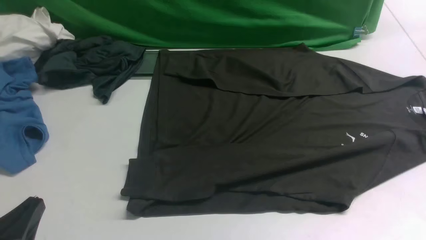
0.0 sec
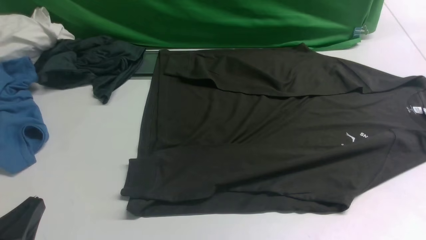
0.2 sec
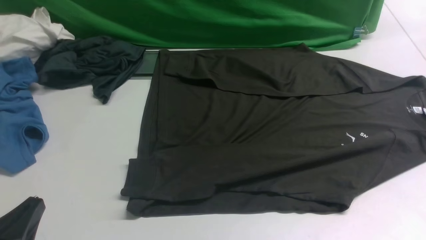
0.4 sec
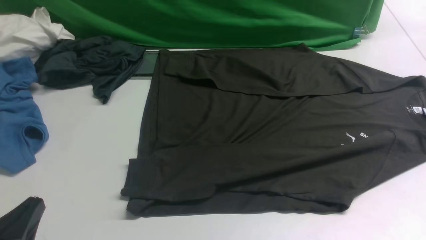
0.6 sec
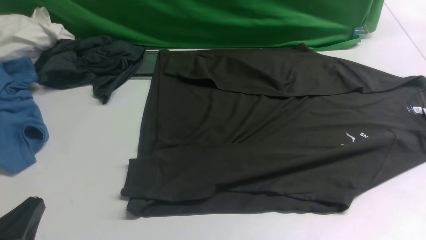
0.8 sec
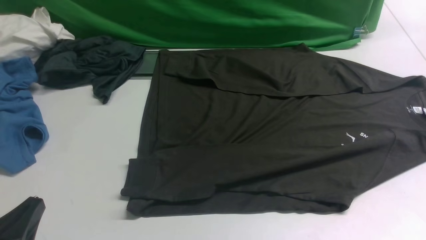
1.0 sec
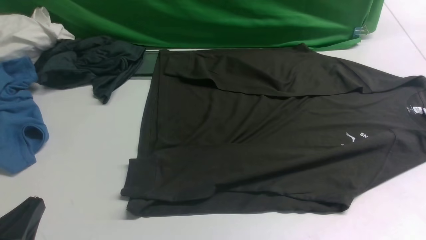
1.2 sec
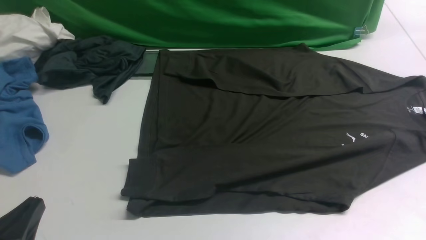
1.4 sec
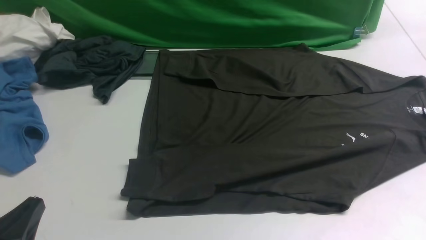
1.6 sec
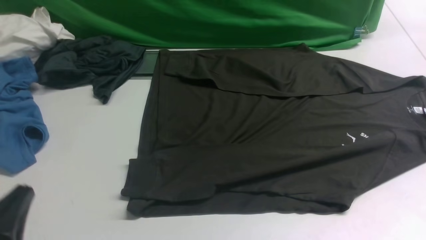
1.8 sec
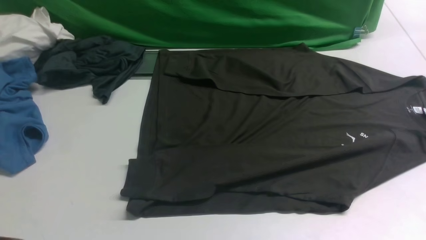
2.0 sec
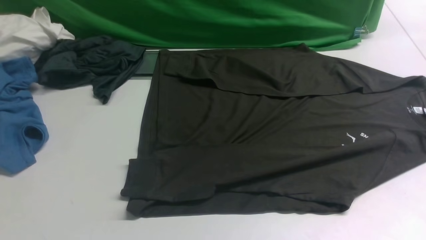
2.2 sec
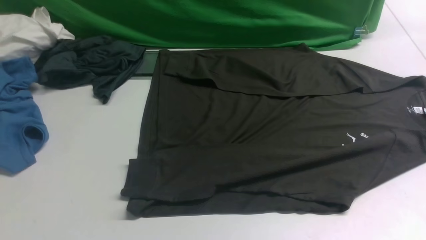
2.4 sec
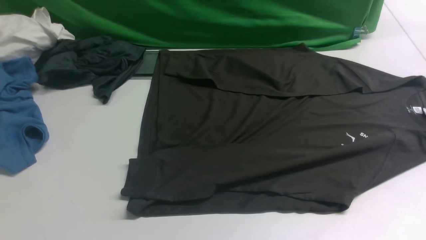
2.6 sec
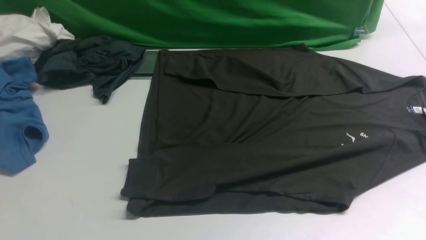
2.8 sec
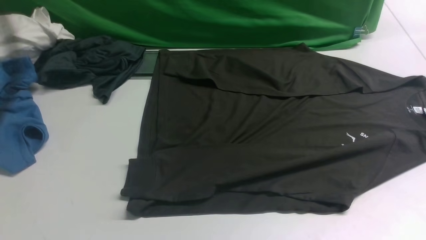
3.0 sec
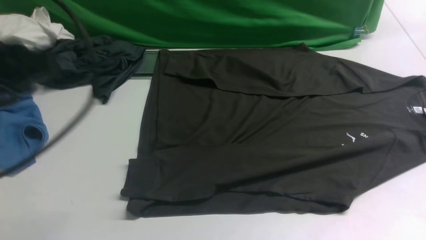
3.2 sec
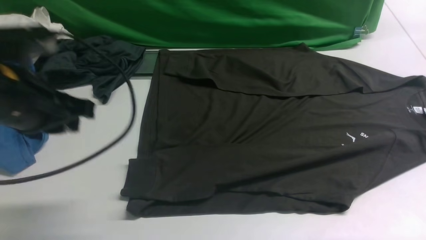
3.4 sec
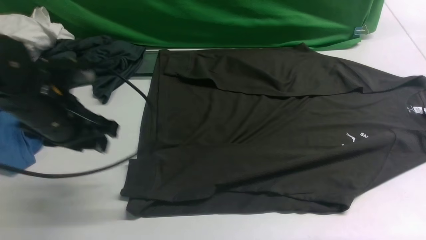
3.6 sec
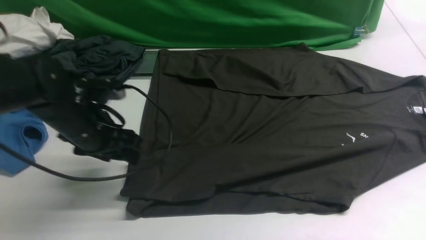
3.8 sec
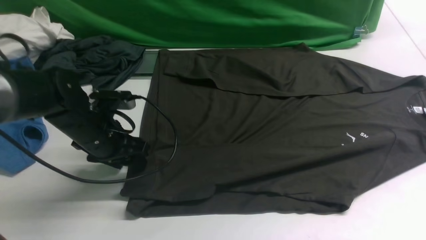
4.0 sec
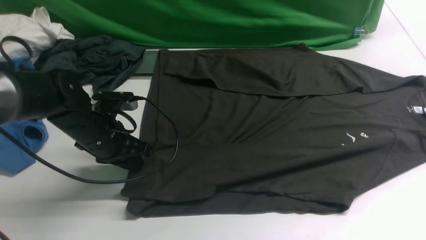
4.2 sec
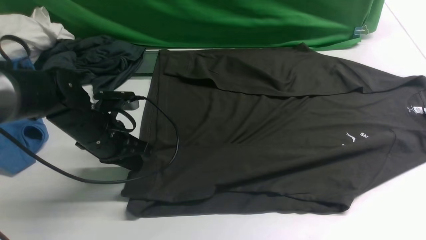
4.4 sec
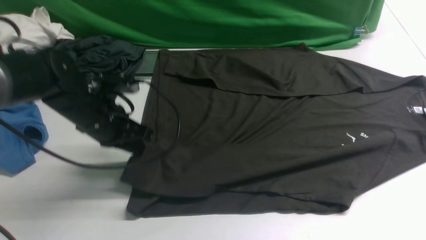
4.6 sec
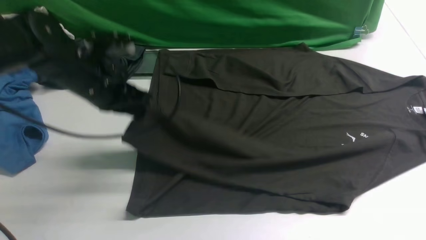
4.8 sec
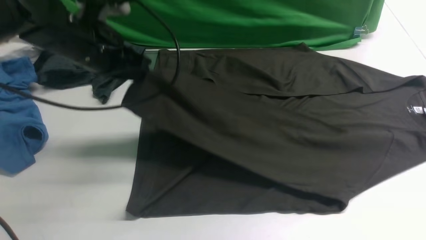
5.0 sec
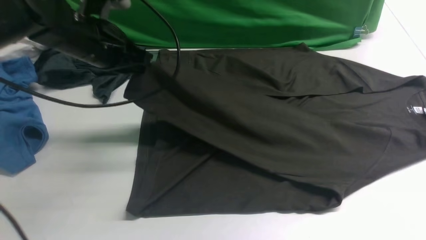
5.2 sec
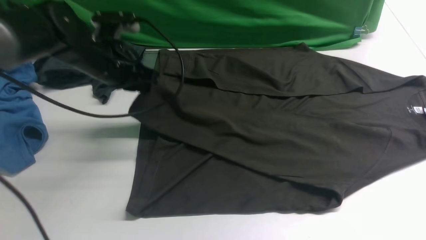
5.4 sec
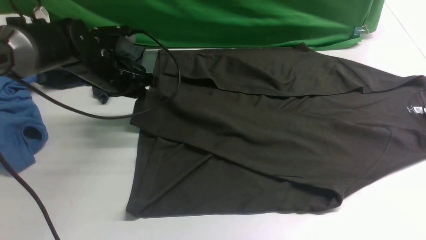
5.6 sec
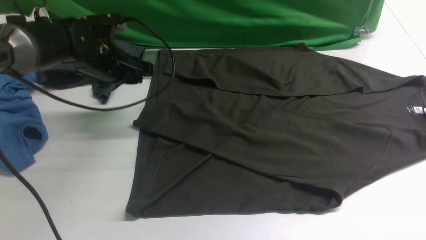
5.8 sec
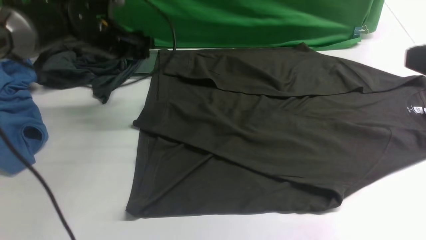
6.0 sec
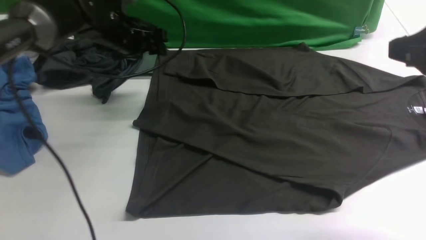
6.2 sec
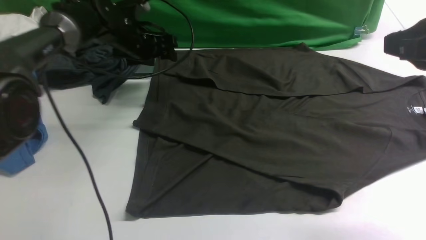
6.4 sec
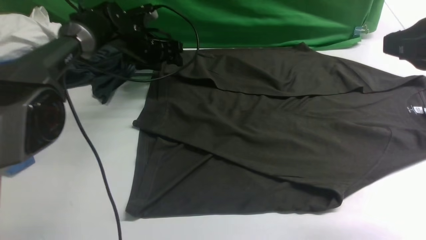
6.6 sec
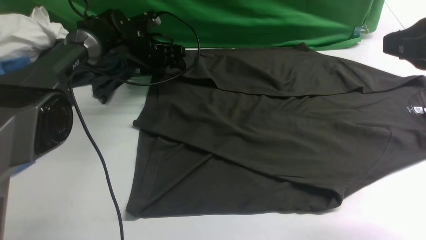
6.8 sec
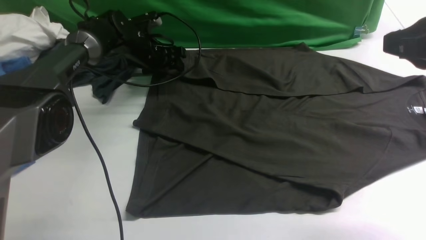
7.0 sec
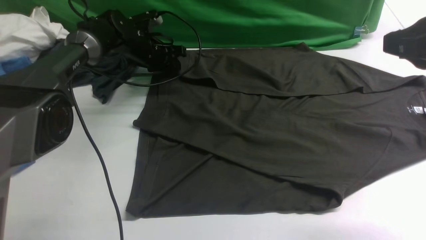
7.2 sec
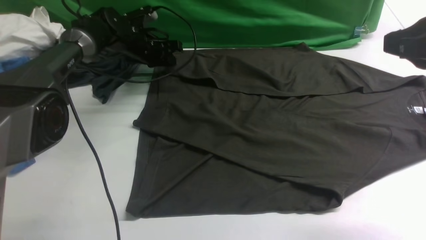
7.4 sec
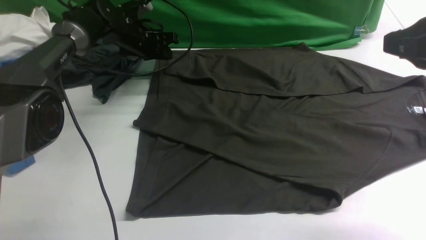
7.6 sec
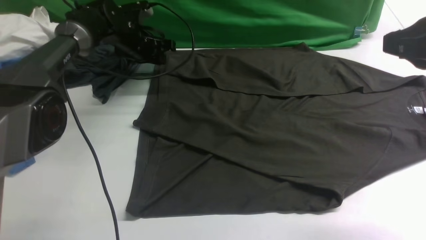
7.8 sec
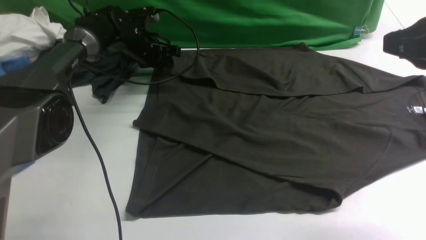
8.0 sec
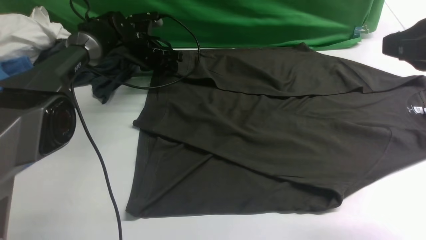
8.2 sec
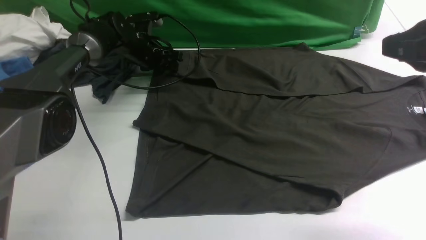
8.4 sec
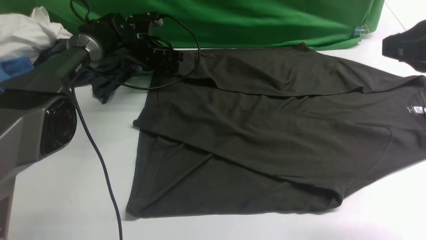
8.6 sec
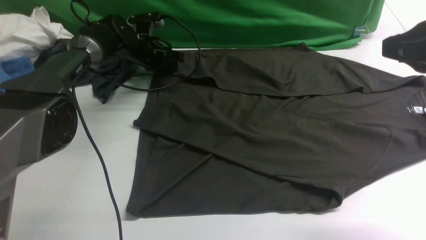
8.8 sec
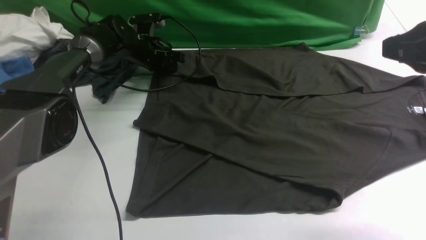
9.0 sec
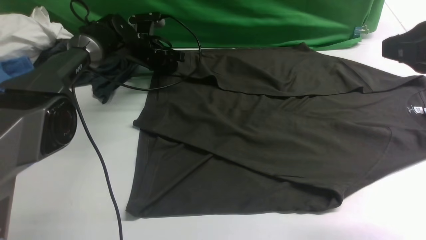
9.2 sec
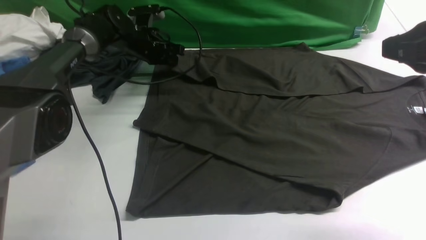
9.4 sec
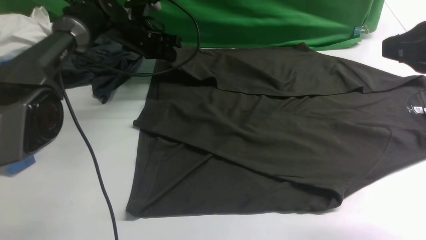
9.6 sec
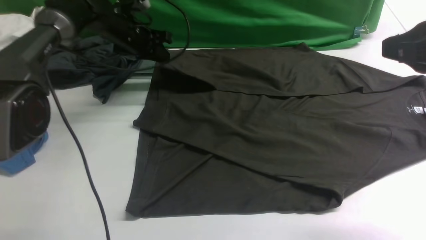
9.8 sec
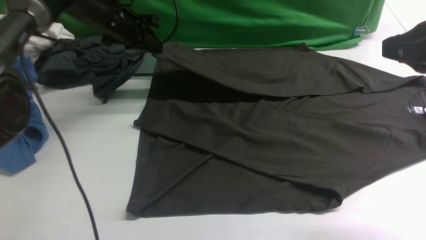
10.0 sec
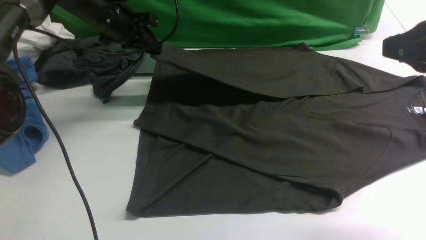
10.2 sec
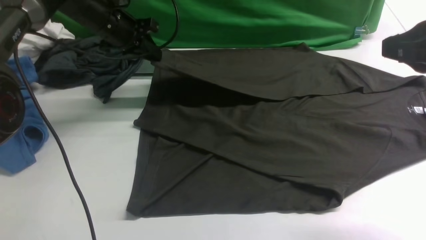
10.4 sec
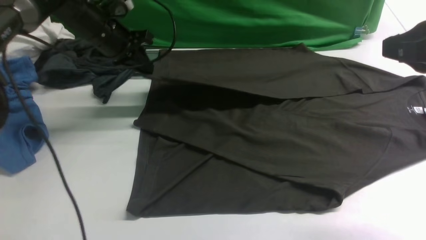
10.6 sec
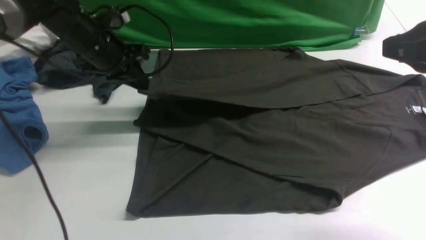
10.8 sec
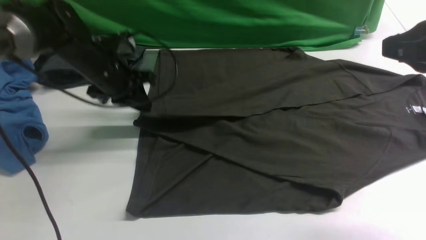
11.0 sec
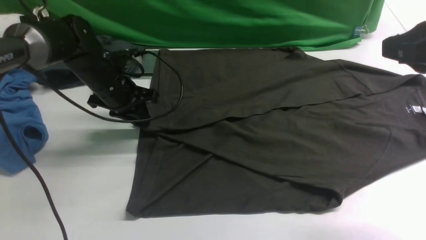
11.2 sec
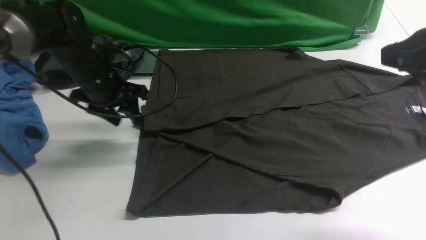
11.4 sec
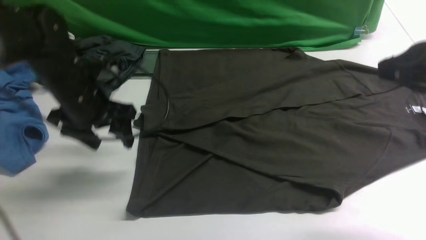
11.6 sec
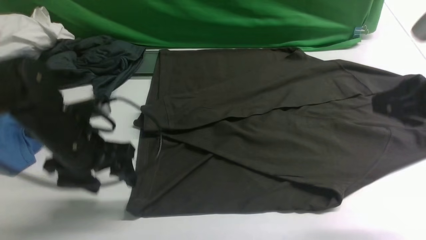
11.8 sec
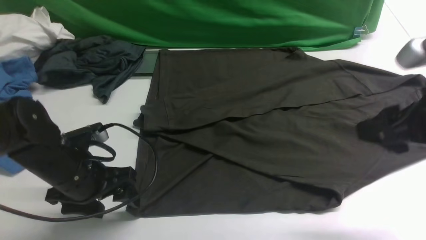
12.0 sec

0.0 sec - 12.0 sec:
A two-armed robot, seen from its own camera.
Step, 0.0 sec - 4.6 sec: use the left arm to clamp the cuff closest to it.
Step, 4.8 sec - 5.6 sec: use the left arm to drag and place the cuff at the centered position on the left edge of the fabric.
Step, 5.8 sec - 9.6 sec: use the left arm to clamp the cuff farthest from it.
Step, 9.8 sec - 11.4 sec: use the left arm to drag and drop the cuff onto the cuff closest to the left arm.
1.6 sec - 3.0 sec: The left gripper goes some 25 cm upward and forward.
3.0 sec - 4.4 sec: The left gripper moves downward and forward, about 30 cm, and opens and closes again.
4.4 sec - 6.0 sec: The left gripper is displaced forward and upward by approximately 15 cm, and opens.
6.0 sec - 7.6 sec: The left gripper shifts roughly 10 cm forward and downward, and closes up.
7.6 sec - 9.0 sec: The left gripper opens and closes again.
9.0 sec - 10.4 sec: The left gripper moves upward and backward, roughly 10 cm.
10.4 sec - 12.0 sec: The right gripper heads downward, covering about 5 cm, and opens, while the left gripper travels backward by roughly 25 cm, and opens.

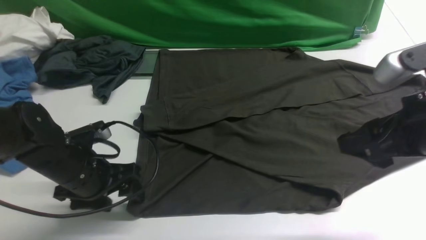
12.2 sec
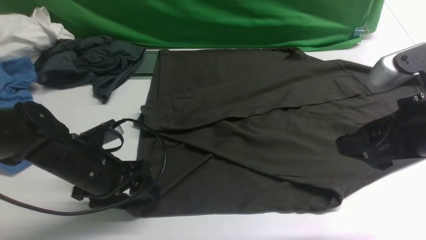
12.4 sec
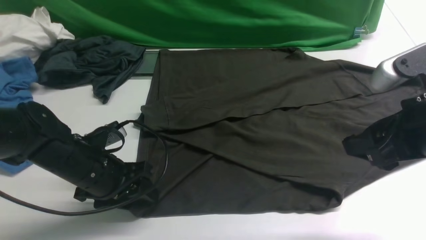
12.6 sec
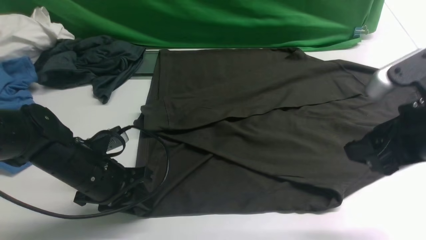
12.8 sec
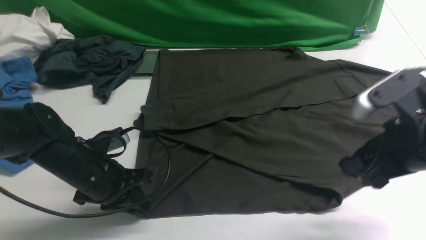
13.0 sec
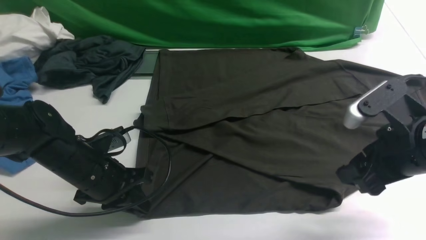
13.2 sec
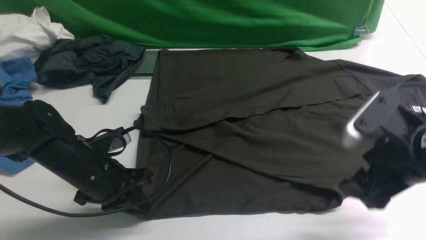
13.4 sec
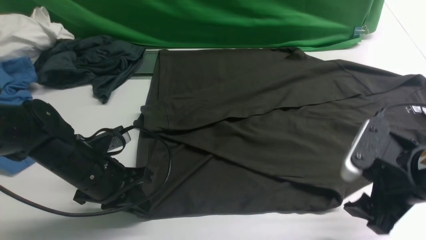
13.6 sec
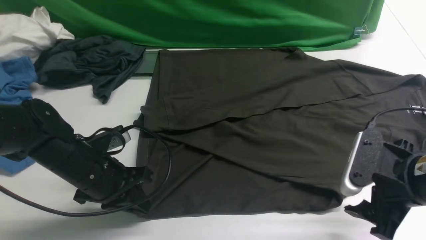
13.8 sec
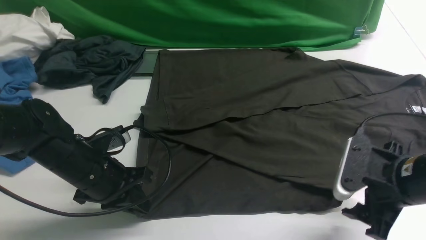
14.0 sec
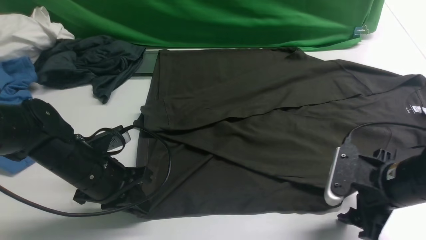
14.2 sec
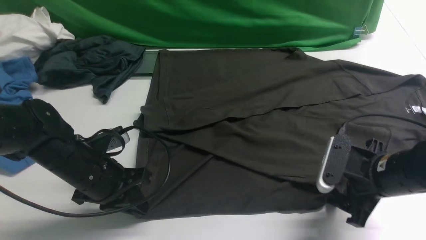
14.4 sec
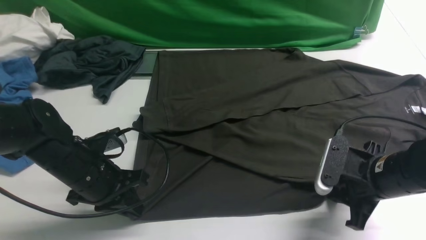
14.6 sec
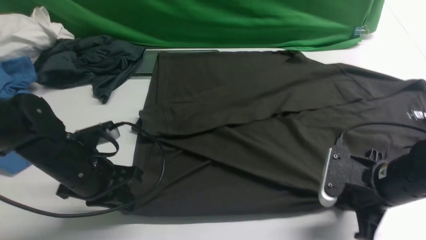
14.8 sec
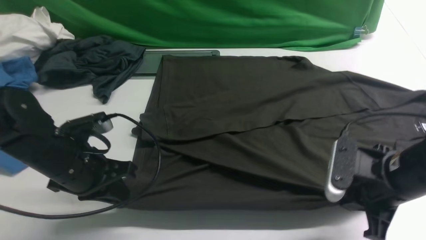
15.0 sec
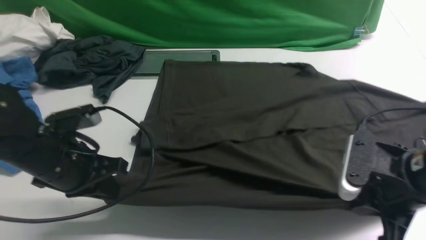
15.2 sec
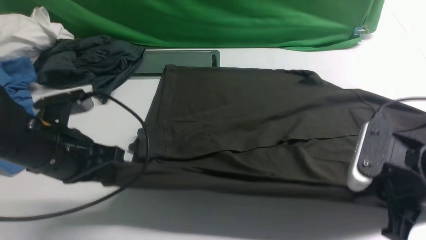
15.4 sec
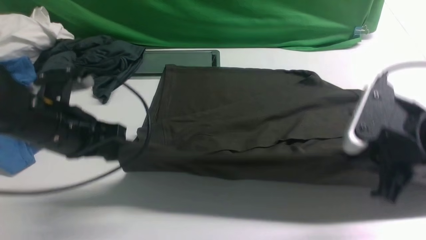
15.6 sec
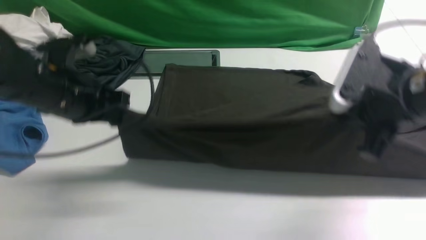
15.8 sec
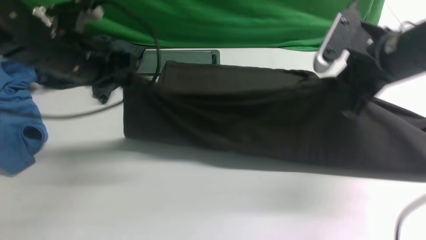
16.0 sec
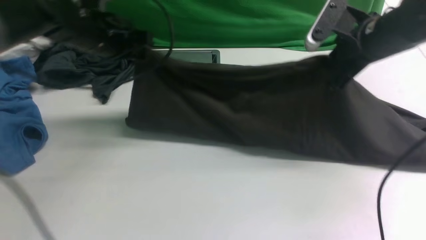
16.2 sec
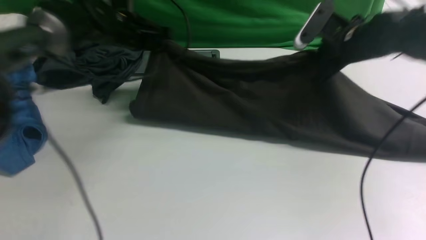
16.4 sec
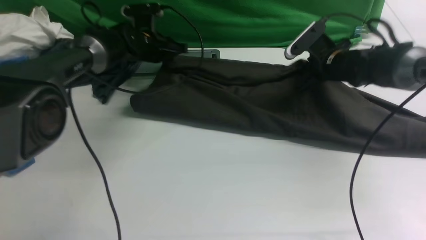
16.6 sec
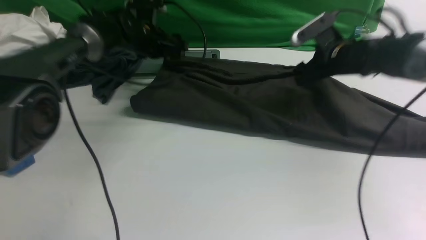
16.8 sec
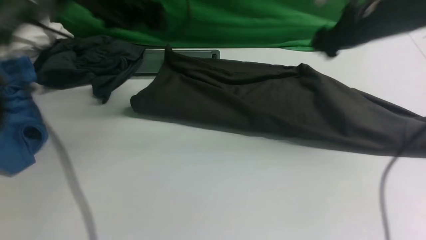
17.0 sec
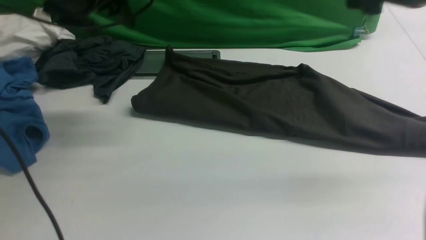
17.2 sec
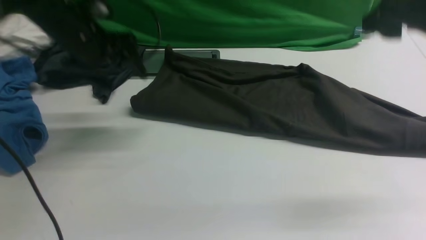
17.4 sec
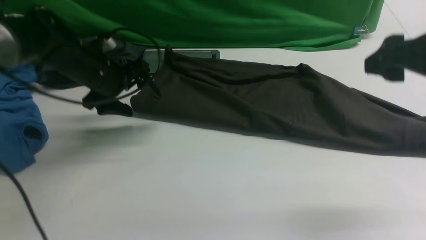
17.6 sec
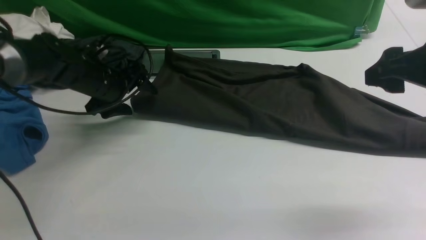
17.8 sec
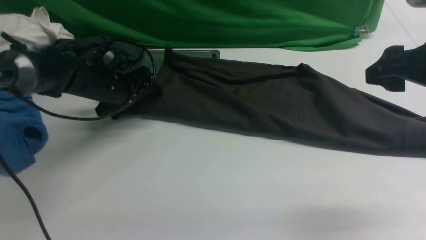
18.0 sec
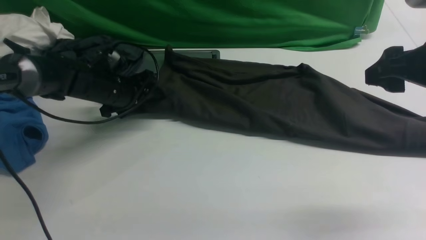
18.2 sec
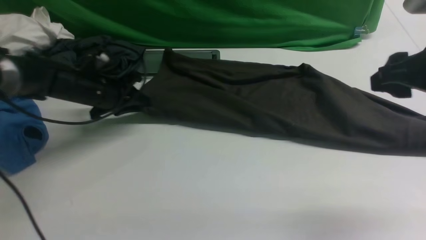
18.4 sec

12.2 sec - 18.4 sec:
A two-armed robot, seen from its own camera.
Step, 12.2 sec - 15.0 sec: use both arms simultaneously to clamp the lower edge of the clothing fabric.
Step, 15.2 sec - 17.0 sec: use both arms to drag the lower edge of the fabric forward and fold it over the upper edge.
12.2 sec - 13.8 sec: The left gripper closes; the right gripper heads downward, covering roughly 10 cm.
13.8 sec - 15.4 sec: The right gripper closes up; the left gripper heads upward, covering some 10 cm.
15.4 sec - 16.8 sec: The grippers both shift forward by some 25 cm. The right gripper opens its fingers. The left gripper opens.
16.8 sec - 18.4 sec: The left gripper travels backward, to the left and downward by roughly 15 cm, and closes its fingers. Meanwhile the right gripper shifts some 25 cm backward and upward, and closes its fingers.
